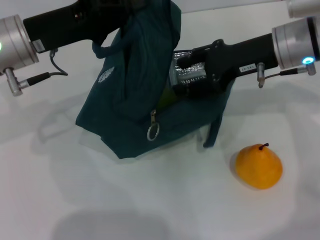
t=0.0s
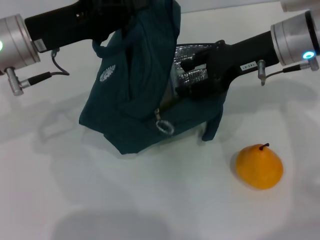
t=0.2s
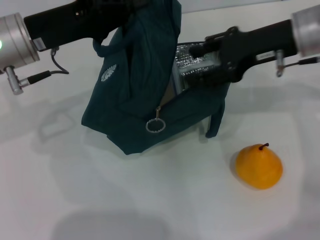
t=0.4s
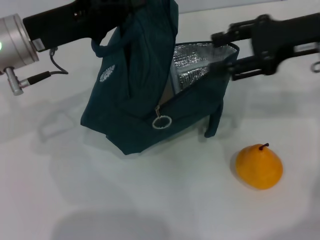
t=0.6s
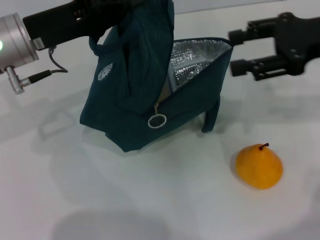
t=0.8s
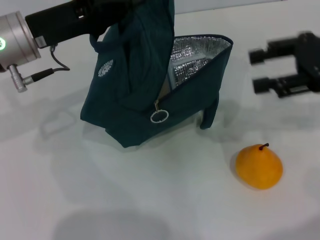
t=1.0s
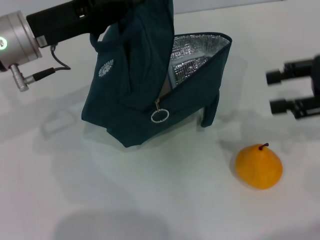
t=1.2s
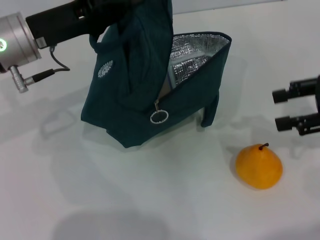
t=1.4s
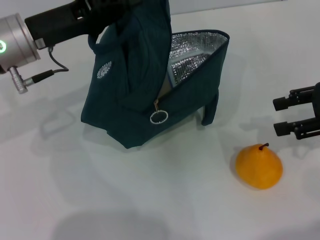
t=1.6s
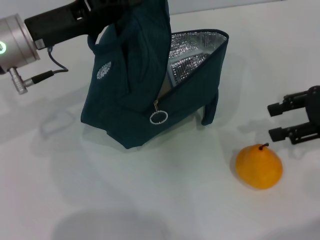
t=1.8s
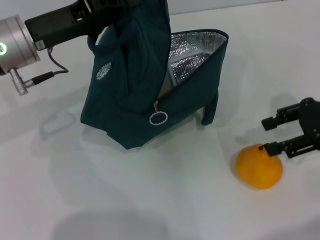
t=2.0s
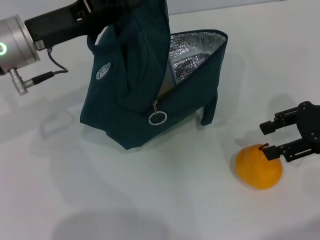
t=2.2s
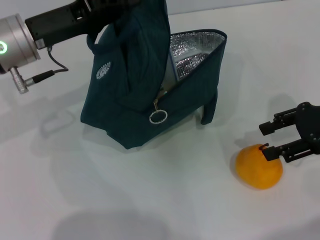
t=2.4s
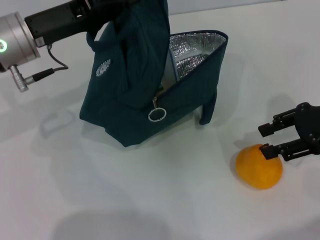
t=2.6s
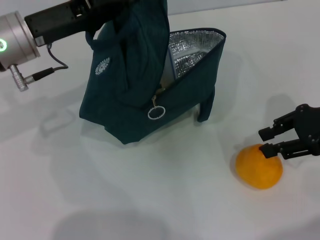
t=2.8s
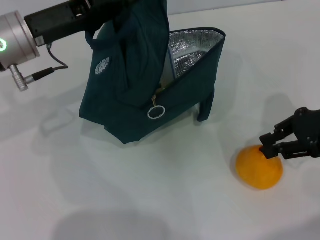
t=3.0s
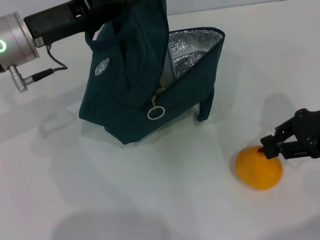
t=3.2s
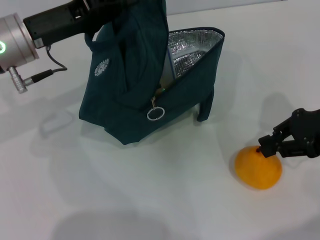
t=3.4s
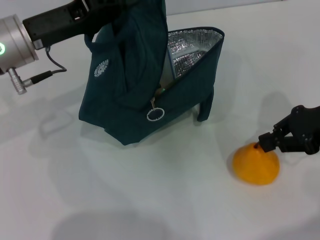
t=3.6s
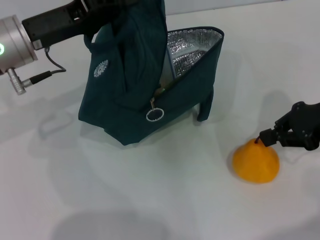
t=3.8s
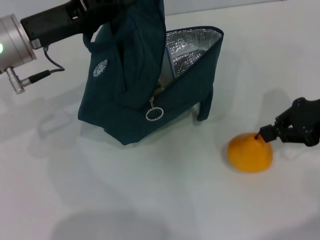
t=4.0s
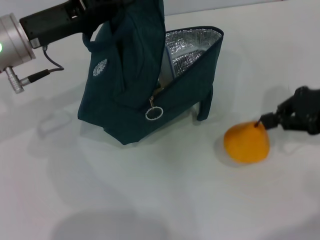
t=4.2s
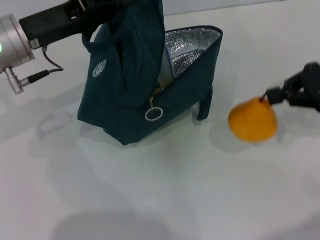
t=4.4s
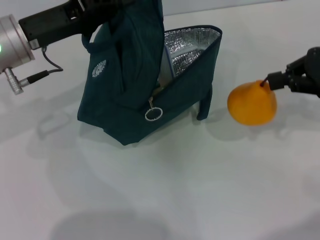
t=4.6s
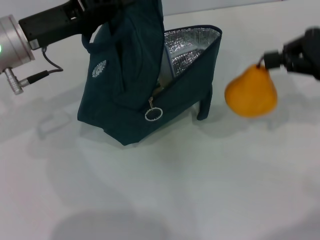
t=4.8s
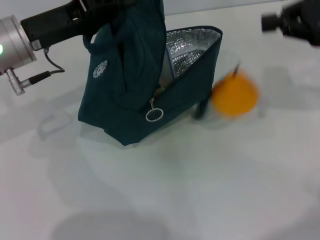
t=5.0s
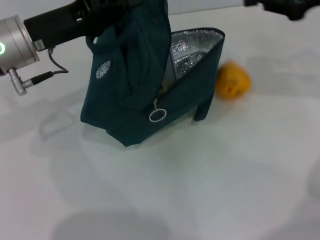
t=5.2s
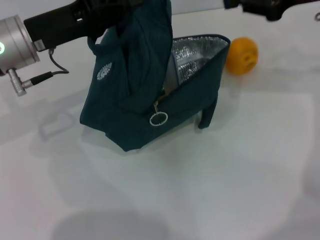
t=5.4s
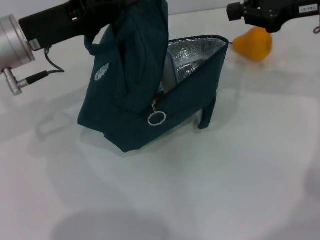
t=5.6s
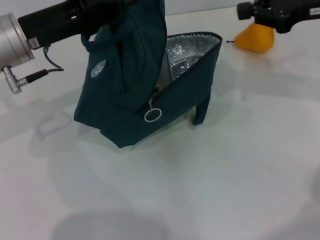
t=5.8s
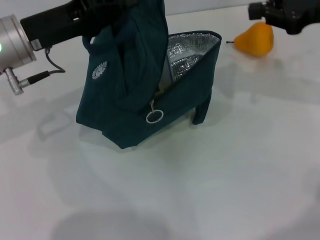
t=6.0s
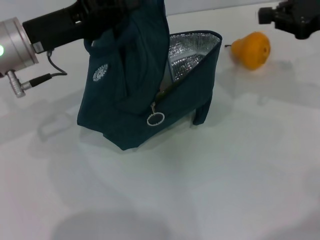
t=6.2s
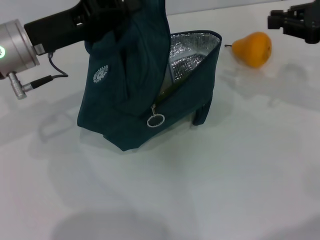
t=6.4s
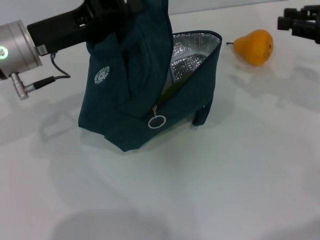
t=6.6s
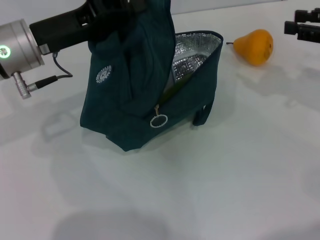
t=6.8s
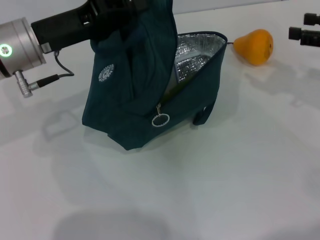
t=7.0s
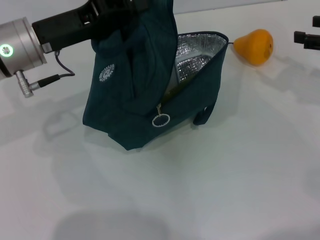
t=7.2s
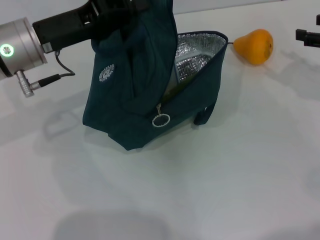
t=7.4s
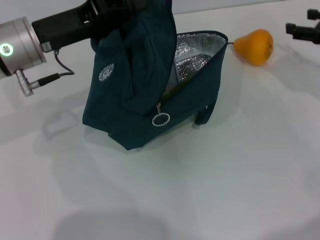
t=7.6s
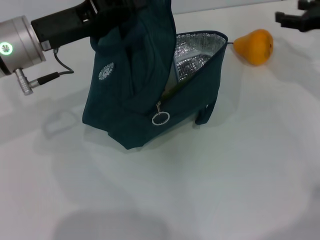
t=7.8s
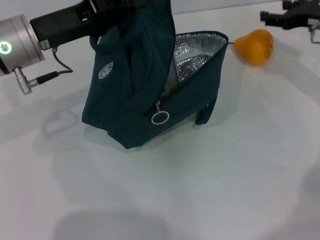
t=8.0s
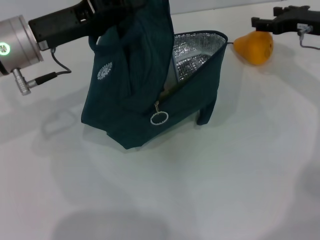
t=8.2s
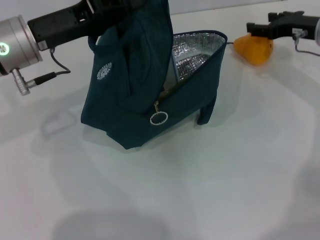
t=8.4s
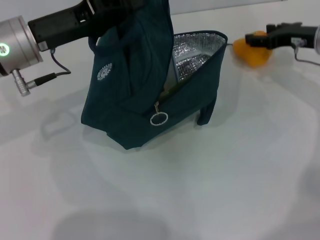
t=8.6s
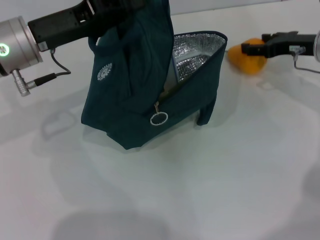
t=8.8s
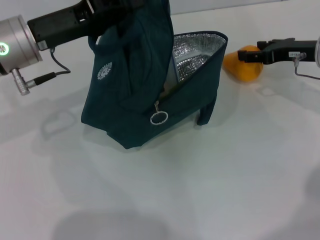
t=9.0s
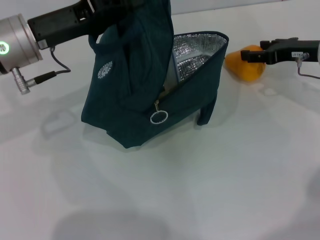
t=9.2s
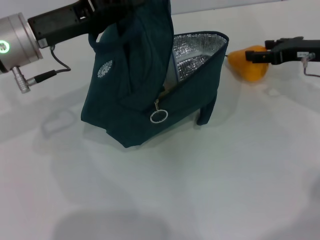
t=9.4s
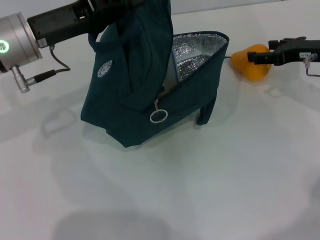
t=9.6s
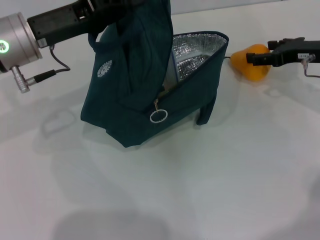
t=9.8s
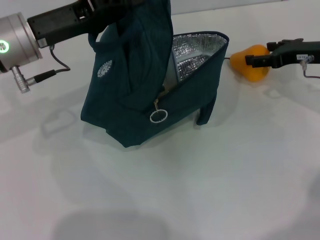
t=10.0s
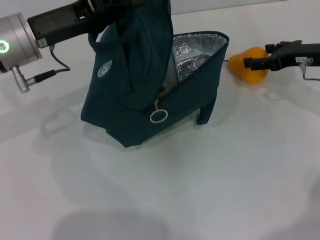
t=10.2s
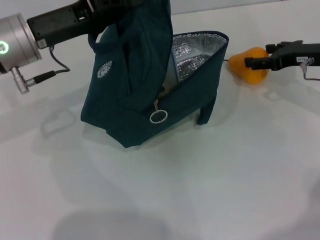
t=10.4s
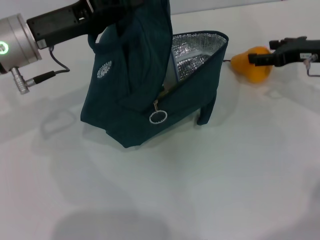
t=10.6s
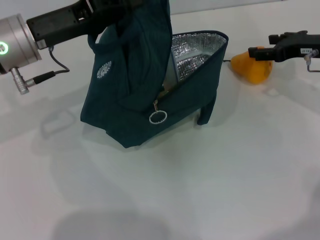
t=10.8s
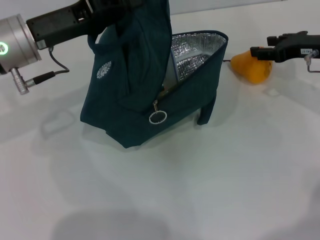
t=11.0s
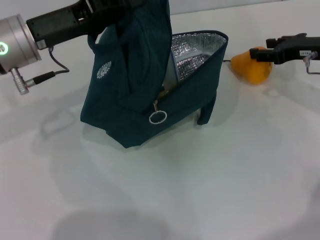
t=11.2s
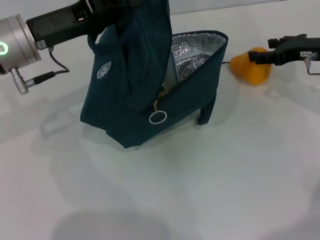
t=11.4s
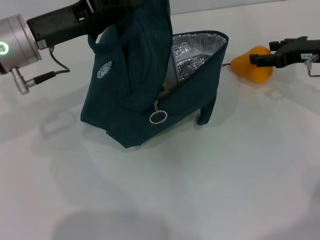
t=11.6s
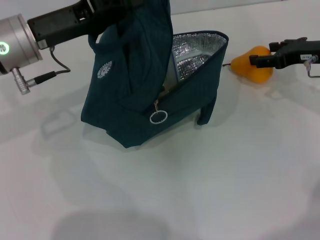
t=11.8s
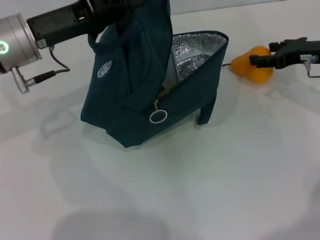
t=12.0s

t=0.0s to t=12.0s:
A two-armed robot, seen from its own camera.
Step, t=1.2s to t=3.6s: Grab the pear with your right hand.
t=0.0s to t=1.6s: The right gripper moves to the right and backward, about 15 cm.
t=1.6s to t=3.0s: The right gripper closes up.
t=3.0s to t=4.4s: The right gripper closes.
t=4.4s to t=6.0s: The right gripper moves forward, roughly 5 cm.
t=6.0s to t=7.6s: The right gripper is displaced downward and to the right by roughly 10 cm, and opens up.
t=7.6s to t=9.0s: The right gripper moves to the left, about 5 cm.
t=9.0s to t=10.4s: There are only small adjustments of the grippers.
t=10.4s to t=12.0s: Both grippers stay put.

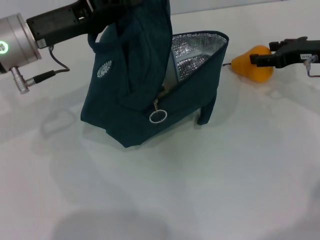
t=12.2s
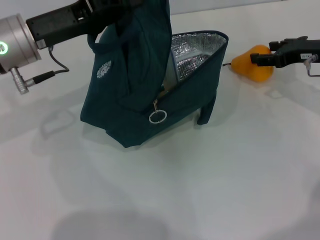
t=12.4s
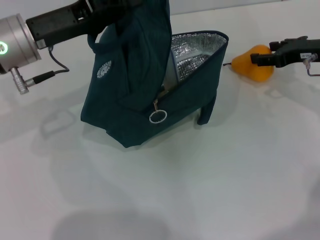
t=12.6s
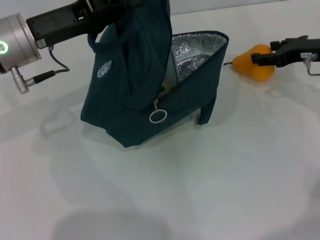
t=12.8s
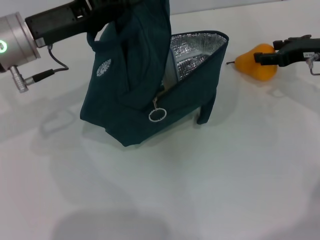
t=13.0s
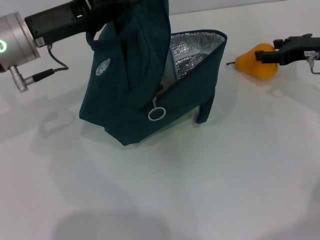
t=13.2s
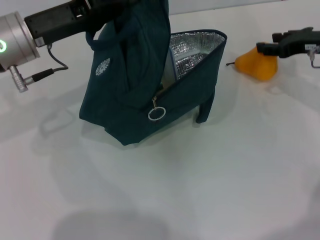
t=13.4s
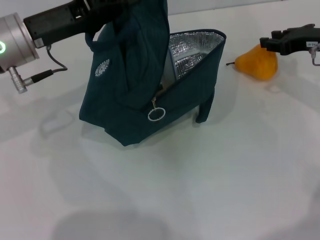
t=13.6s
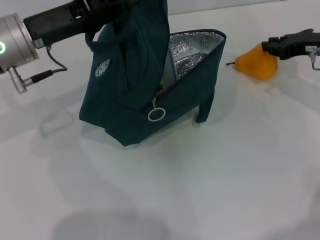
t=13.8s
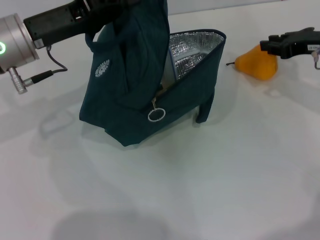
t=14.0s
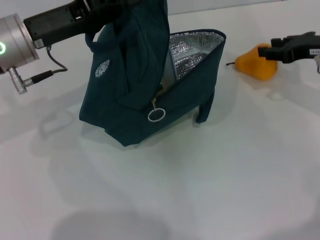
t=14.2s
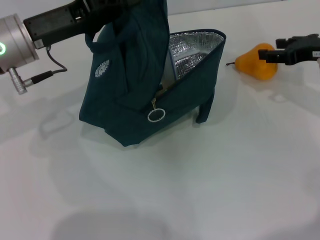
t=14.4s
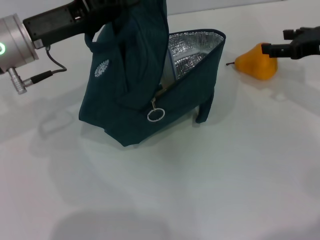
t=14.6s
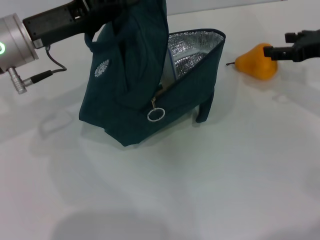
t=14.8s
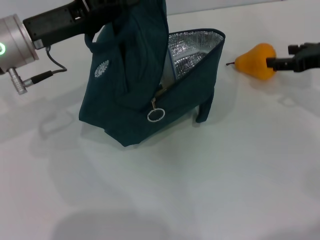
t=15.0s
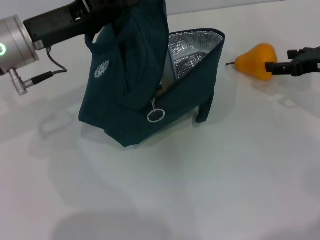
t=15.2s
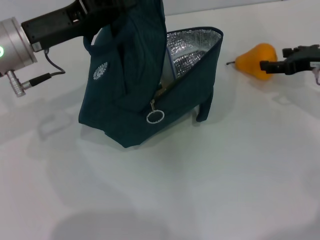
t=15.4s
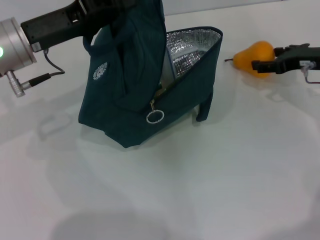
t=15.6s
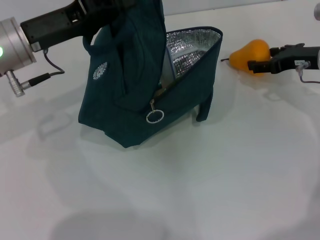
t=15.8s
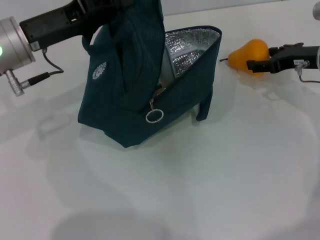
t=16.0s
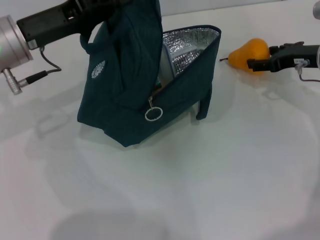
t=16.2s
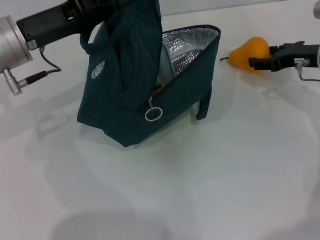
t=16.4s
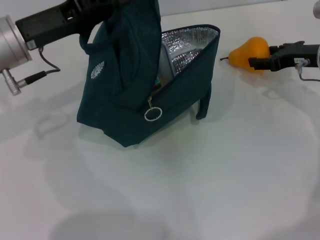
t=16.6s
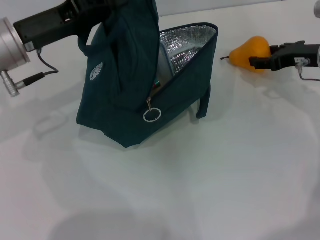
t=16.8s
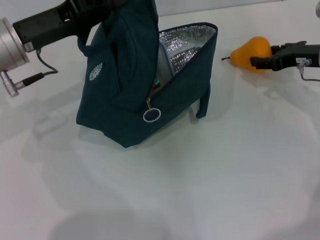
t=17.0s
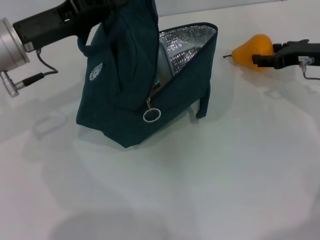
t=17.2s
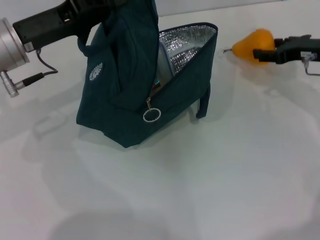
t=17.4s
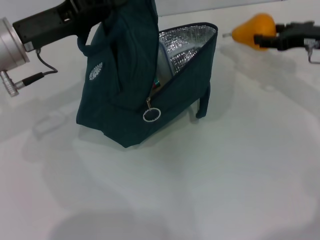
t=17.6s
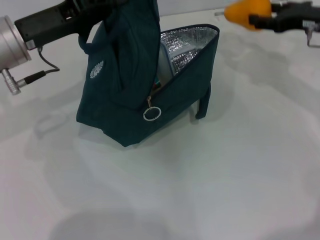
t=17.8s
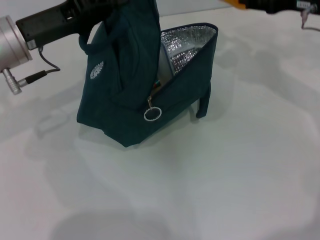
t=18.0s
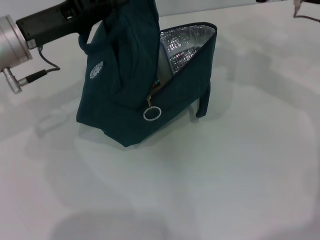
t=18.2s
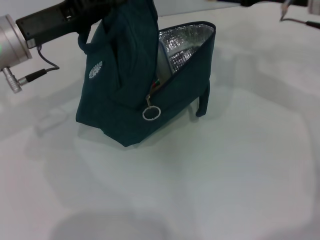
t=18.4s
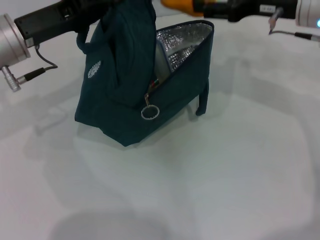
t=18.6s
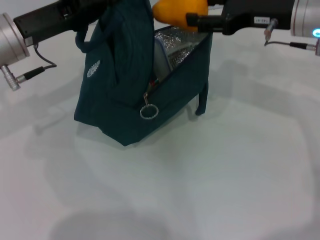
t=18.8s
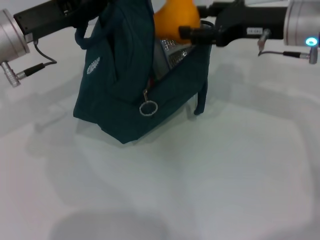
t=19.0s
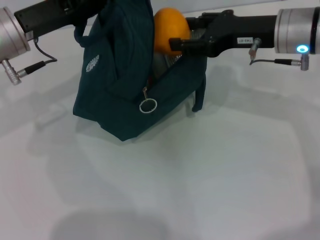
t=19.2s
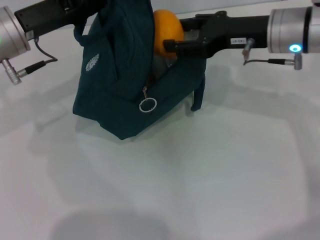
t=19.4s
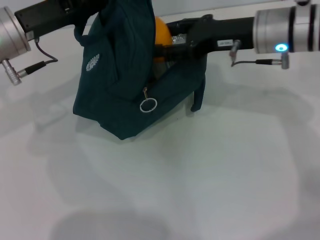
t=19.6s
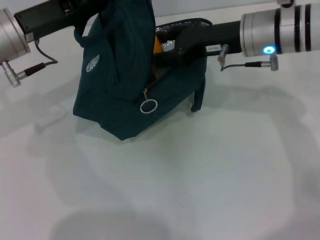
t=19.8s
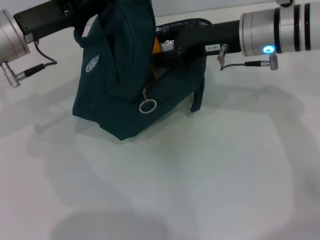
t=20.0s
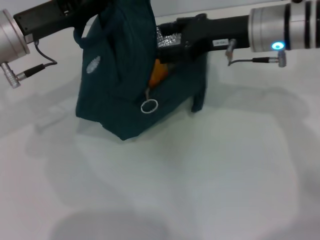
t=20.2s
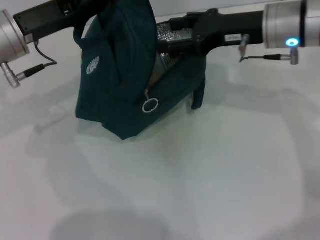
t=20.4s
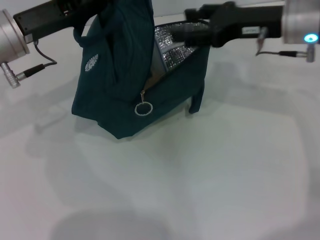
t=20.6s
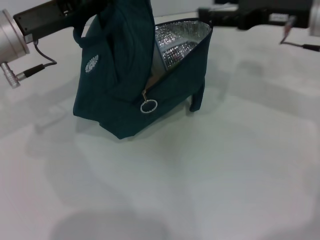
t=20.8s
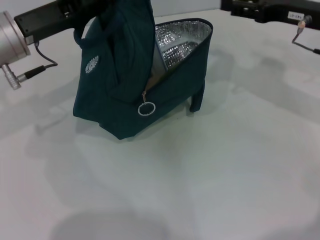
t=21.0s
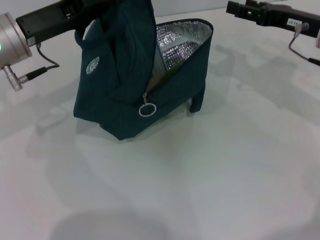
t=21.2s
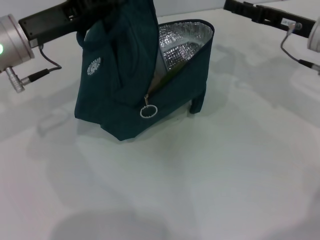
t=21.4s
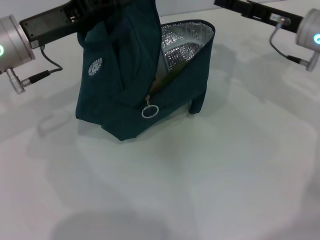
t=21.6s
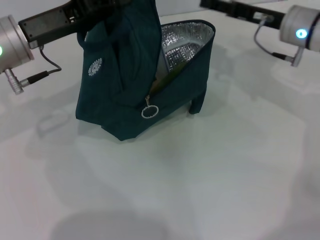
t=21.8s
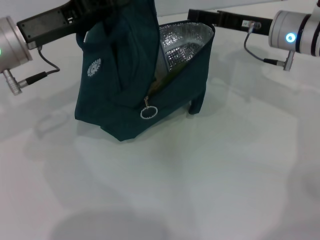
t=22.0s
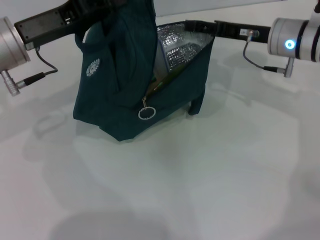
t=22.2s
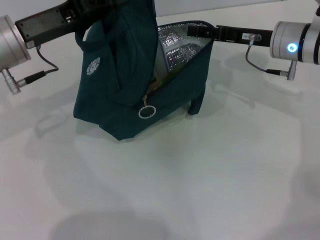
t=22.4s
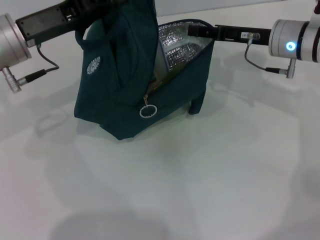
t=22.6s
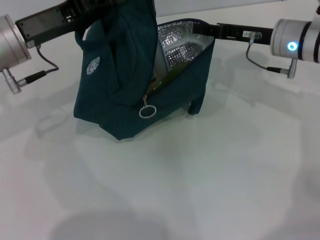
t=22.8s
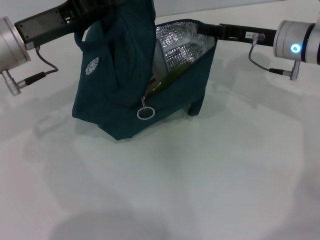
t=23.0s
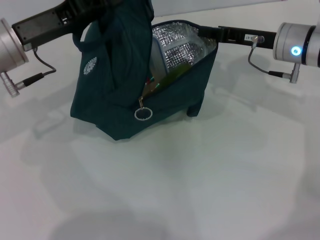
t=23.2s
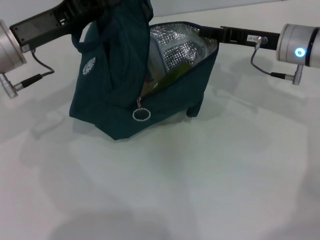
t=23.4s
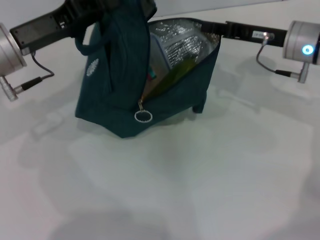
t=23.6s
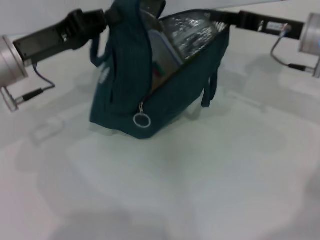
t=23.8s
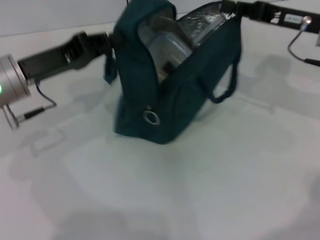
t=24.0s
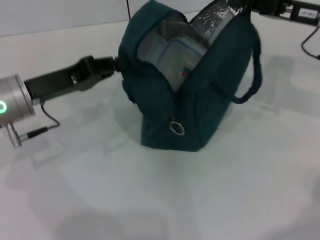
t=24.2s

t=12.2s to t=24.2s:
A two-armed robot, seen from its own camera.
t=12.2s to t=13.8s: The right gripper closes its fingers.
t=13.8s to t=15.2s: The right gripper opens.
t=15.2s to t=16.6s: There are only small adjustments of the grippers.
t=16.6s to t=18.2s: The right gripper is displaced upward by about 10 cm.
t=18.2s to t=19.8s: The right gripper moves to the left, about 10 cm.
t=19.8s to t=21.2s: The right gripper moves to the right, some 10 cm.
t=21.2s to t=22.6s: The right gripper is displaced to the left by roughly 5 cm.
t=22.6s to t=24.2s: The left gripper travels downward by some 5 cm; the right gripper shifts approximately 5 cm to the right, and closes its fingers.
